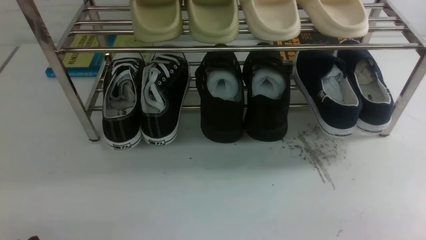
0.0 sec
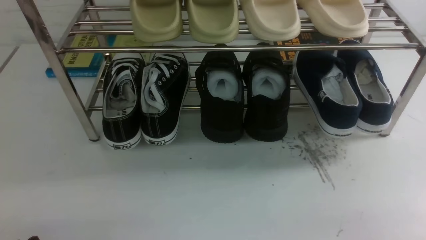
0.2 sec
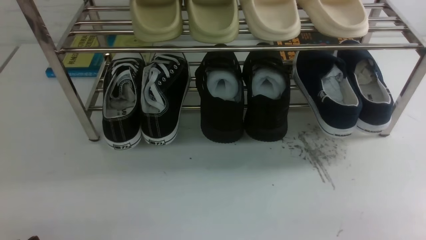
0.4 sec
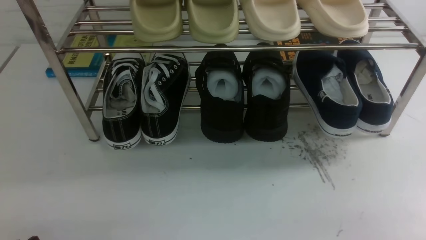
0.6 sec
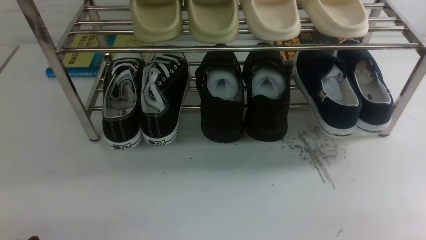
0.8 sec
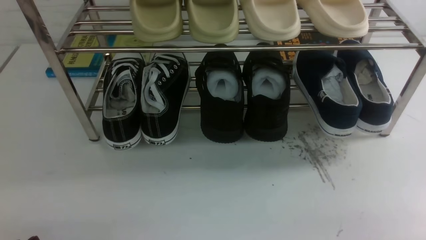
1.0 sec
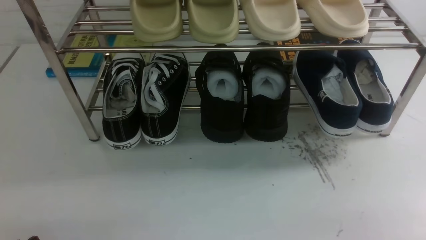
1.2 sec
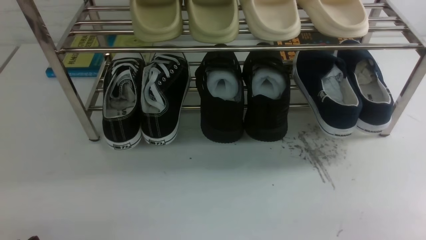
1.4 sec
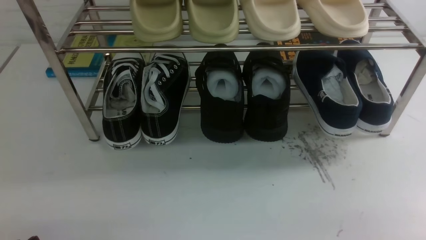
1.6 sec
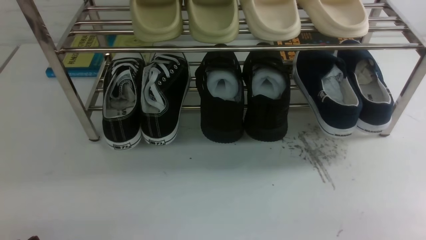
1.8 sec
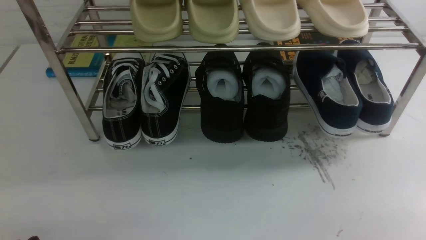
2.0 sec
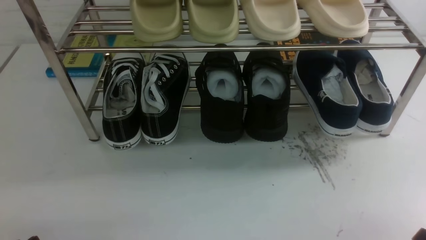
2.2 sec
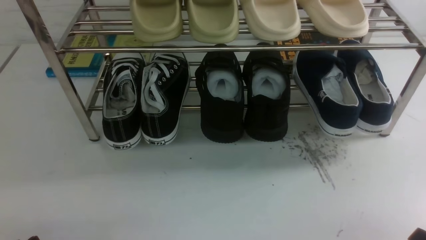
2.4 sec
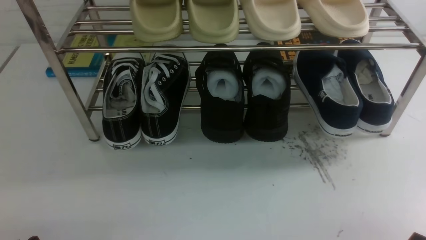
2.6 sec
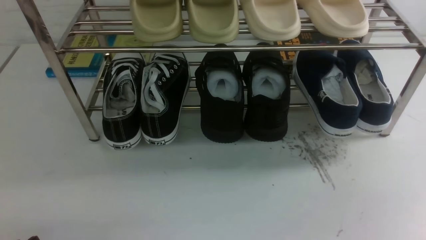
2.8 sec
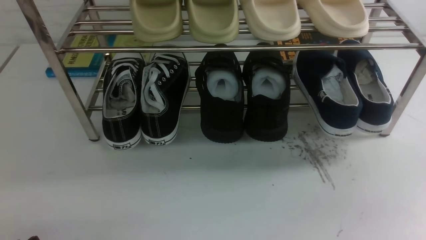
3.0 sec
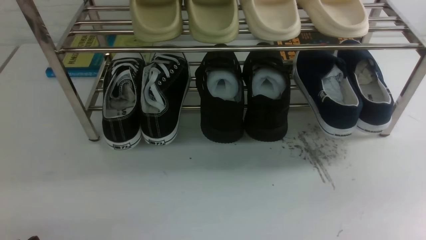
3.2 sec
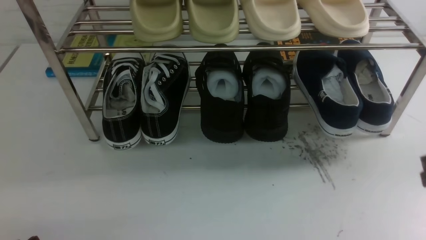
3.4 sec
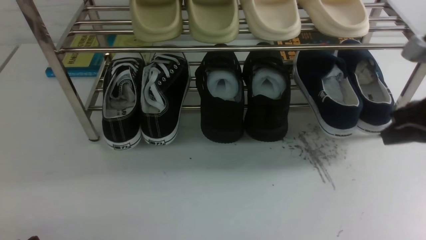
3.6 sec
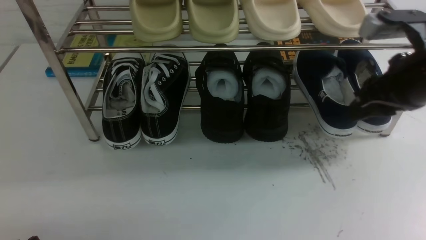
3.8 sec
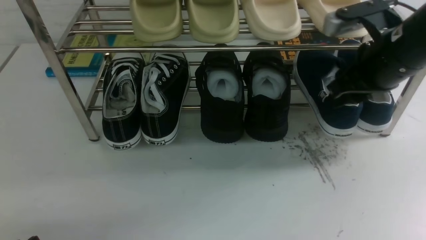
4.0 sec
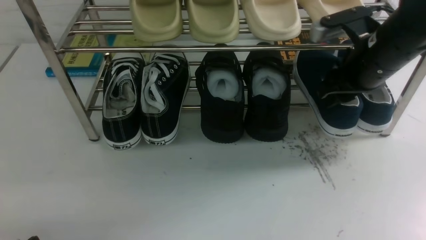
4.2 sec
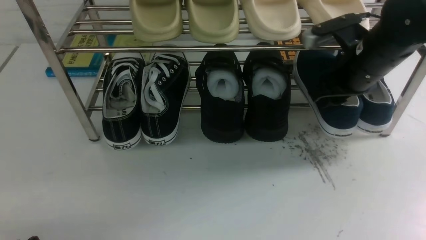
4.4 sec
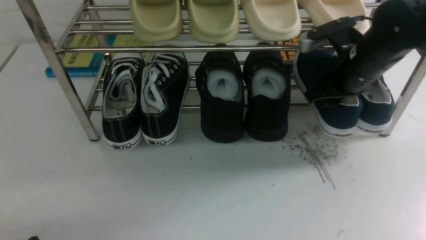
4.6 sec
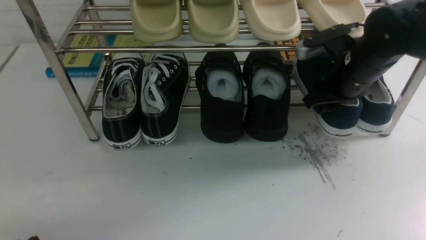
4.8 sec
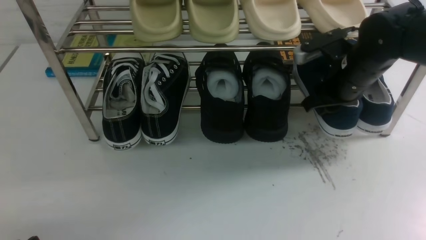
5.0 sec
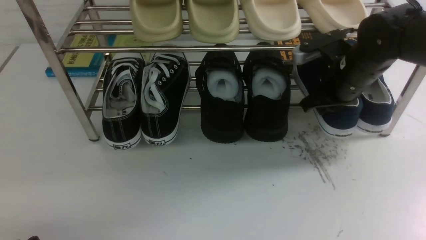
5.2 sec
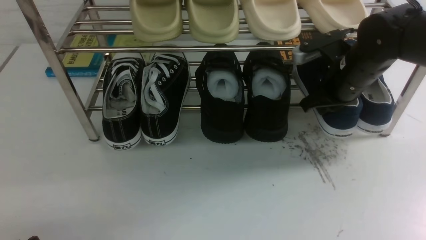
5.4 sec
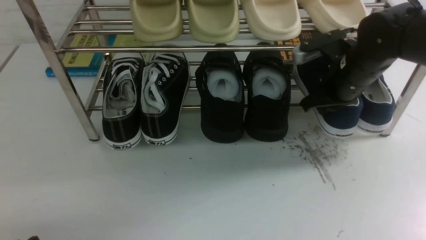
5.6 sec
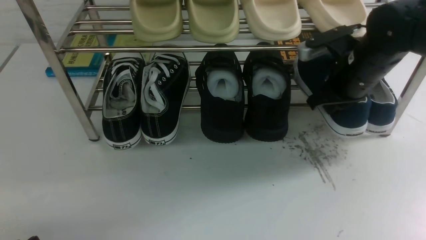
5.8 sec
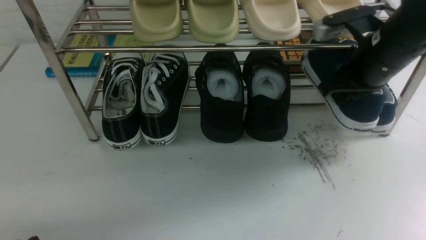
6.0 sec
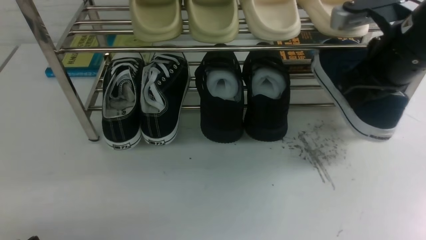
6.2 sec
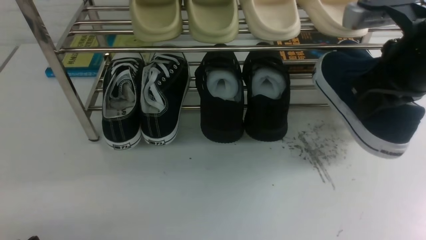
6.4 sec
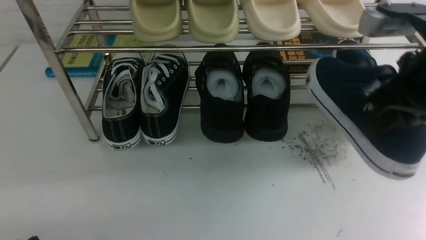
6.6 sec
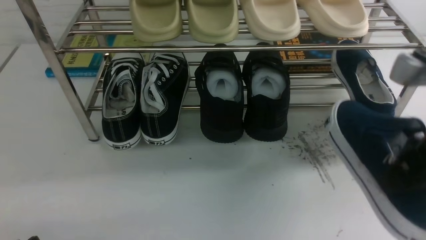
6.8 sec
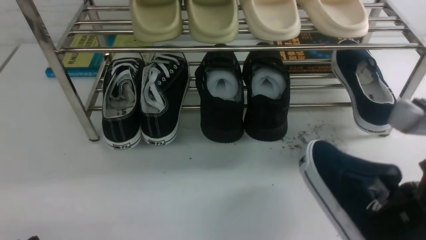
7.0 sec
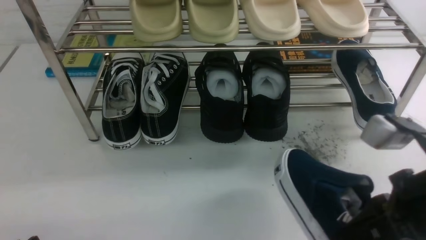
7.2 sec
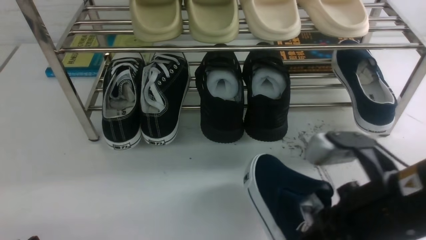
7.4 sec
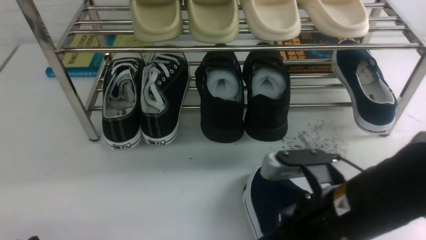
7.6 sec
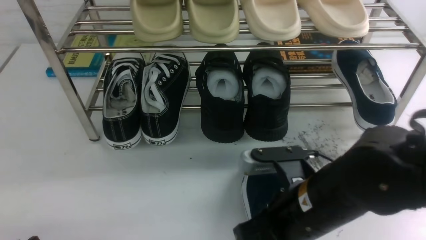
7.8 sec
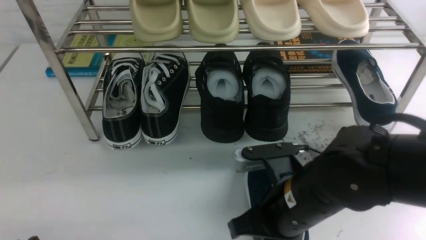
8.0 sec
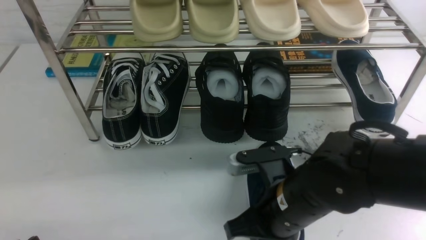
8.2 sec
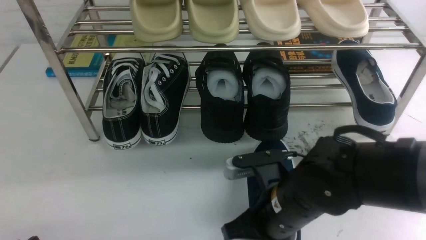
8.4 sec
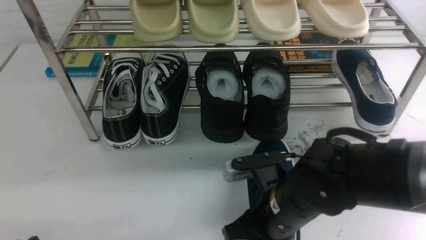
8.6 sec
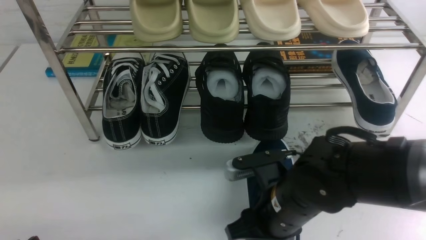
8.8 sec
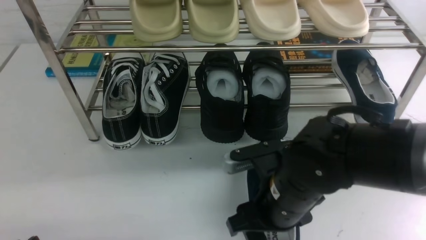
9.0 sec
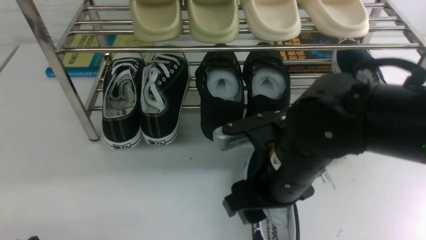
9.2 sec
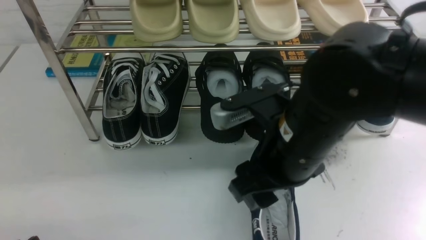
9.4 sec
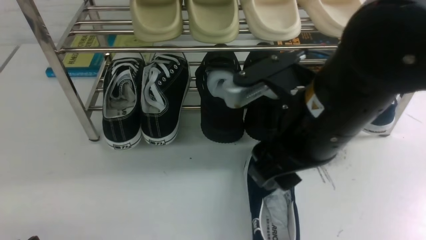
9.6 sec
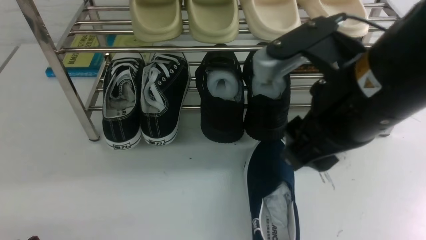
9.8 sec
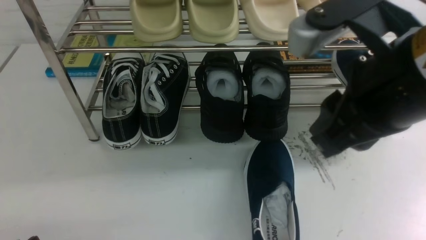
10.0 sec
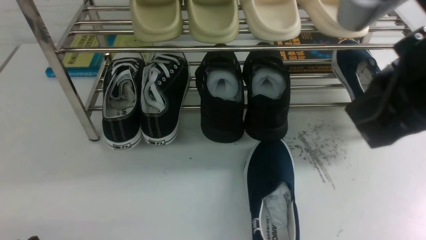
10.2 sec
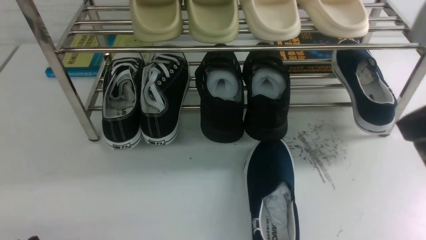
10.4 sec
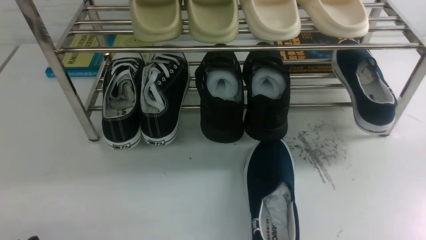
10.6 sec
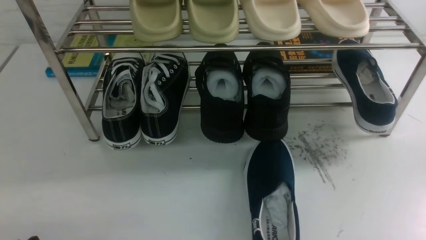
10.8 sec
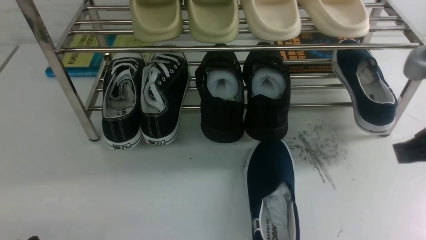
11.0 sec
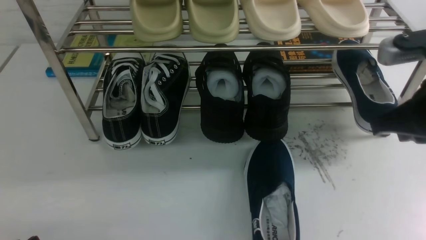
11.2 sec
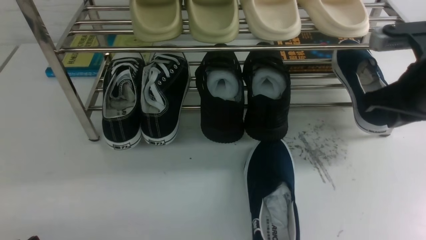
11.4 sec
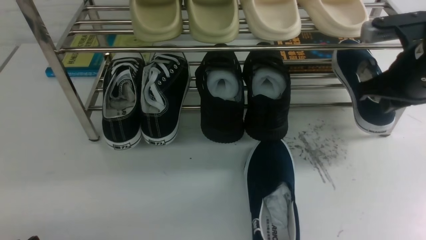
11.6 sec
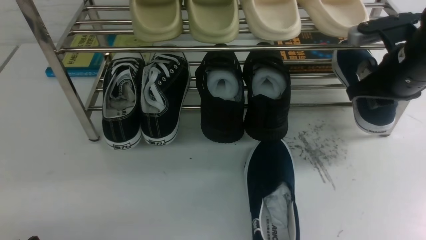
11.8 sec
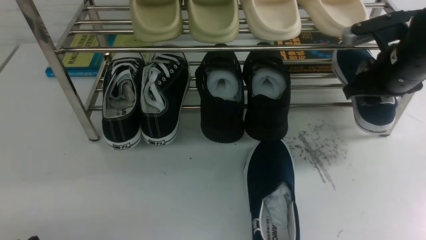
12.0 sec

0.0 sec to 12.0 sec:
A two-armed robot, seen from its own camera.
Step, 0.0 sec to 6.0 sec: use the right arm to clamp a shoe on the right side of the shoe rack.
Step, 6.2 sec to 9.2 sec: use the right arm to take out the clamped shoe from the shoe rack and put it down.
0.0 sec to 1.6 sec: Neither gripper changes place.
3.0 sec to 4.4 sec: The right gripper goes approximately 30 cm forward, and opens.
4.4 sec to 6.0 sec: The right gripper closes its fingers.
6.0 sec to 7.6 sec: The right gripper shifts some 20 cm backward, to the left and downward.
7.6 sec to 9.0 sec: The right gripper changes place by some 10 cm, and opens.
9.0 sec to 10.4 sec: The right gripper is displaced upward and to the right by roughly 25 cm, and closes its fingers.
10.4 sec to 12.0 sec: The right gripper shifts some 25 cm forward and downward, and opens its fingers.

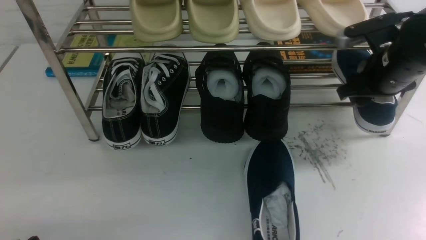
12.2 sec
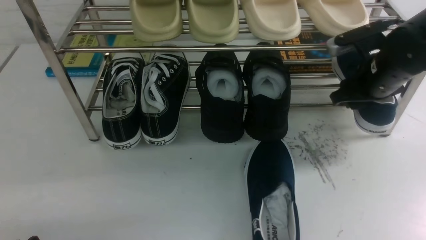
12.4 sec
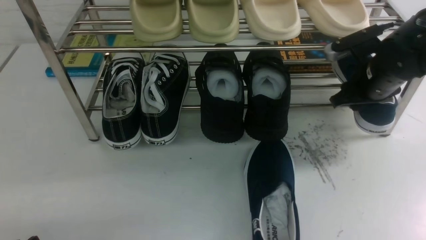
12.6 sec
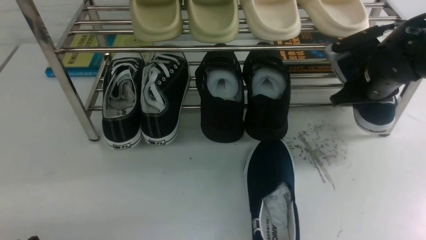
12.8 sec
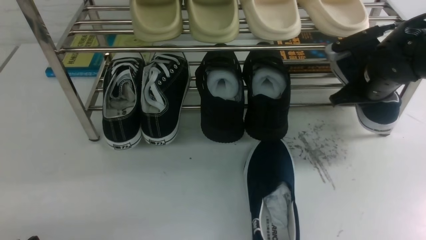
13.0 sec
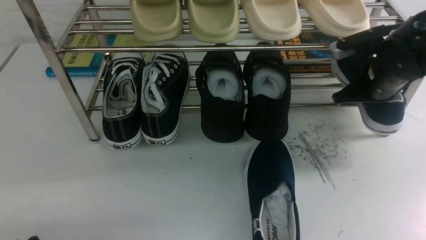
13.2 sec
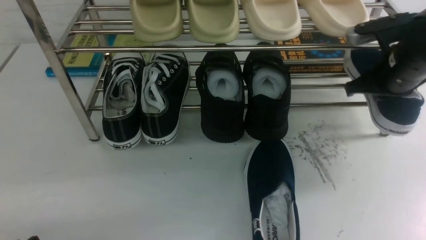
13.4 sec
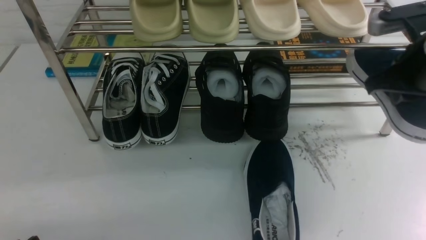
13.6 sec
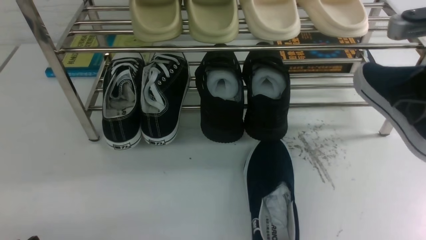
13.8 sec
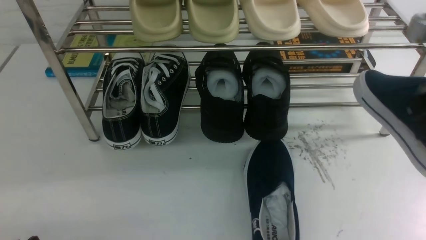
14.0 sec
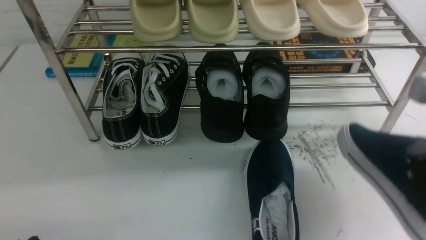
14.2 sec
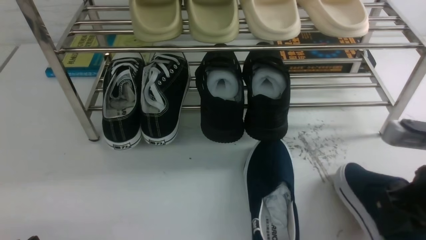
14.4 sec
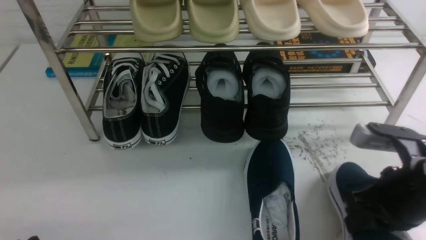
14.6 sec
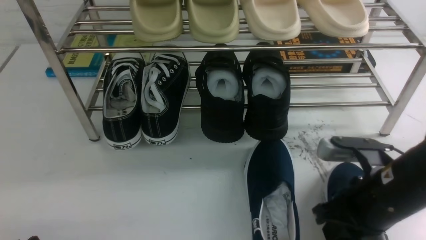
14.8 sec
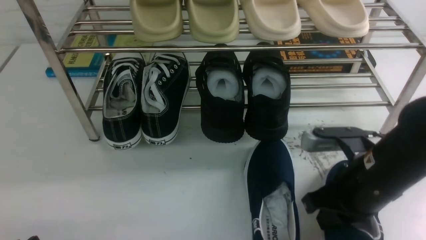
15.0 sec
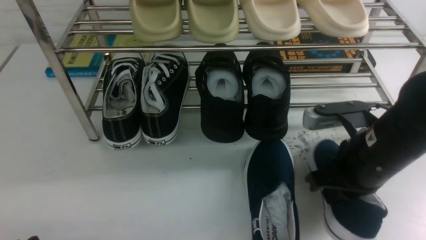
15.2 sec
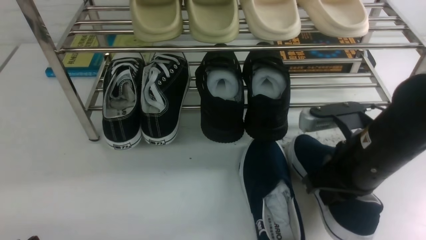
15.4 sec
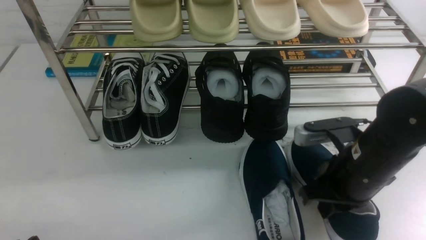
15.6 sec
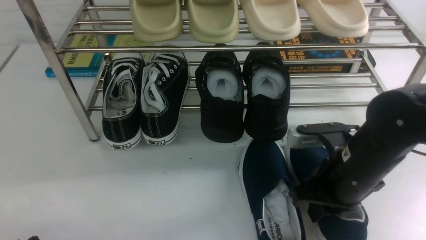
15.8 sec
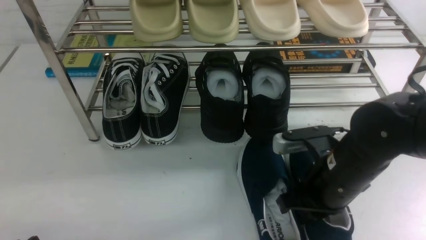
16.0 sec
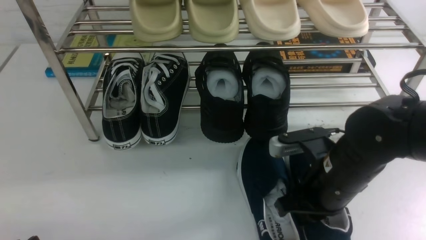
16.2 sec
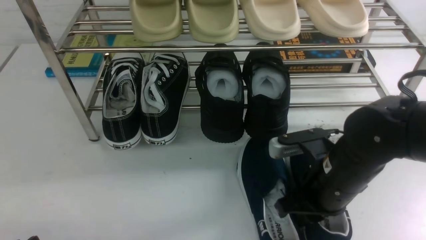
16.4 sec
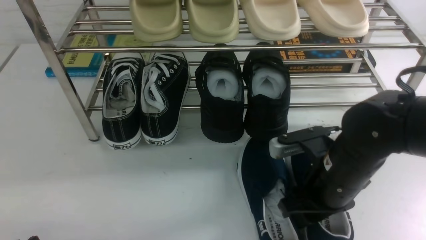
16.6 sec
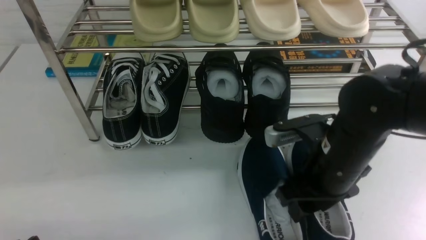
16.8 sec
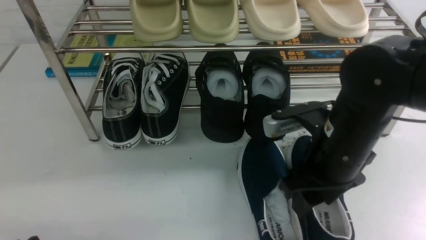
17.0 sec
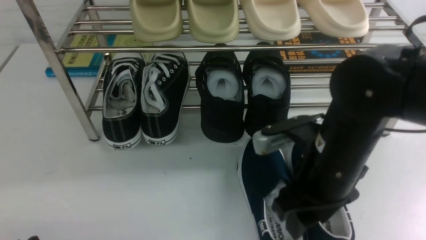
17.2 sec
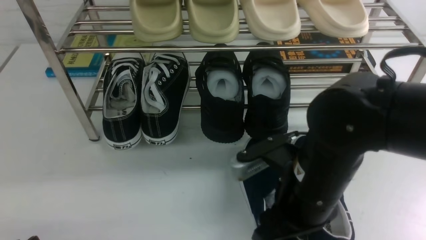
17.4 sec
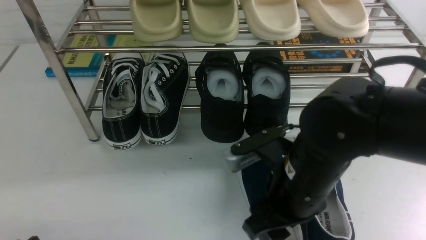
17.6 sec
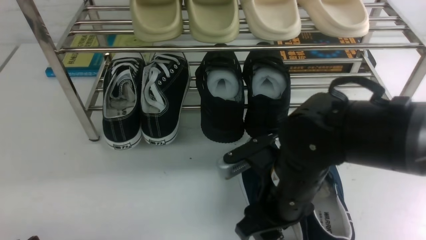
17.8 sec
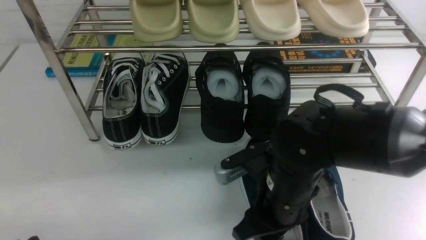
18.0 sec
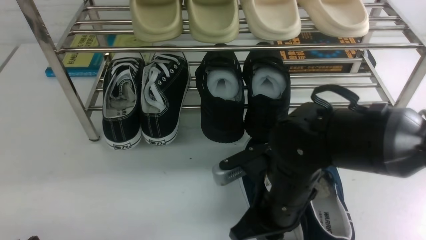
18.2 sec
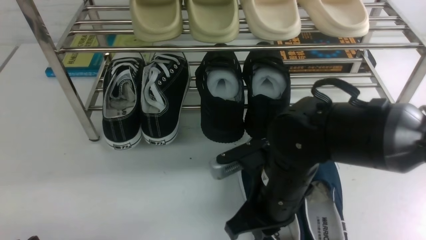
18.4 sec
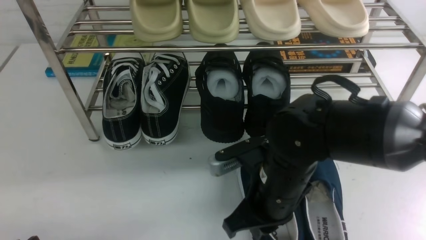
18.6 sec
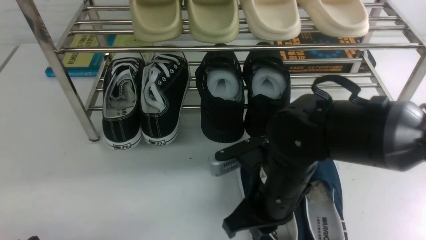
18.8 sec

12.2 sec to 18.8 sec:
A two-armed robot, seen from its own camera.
Step, 13.6 sec to 17.0 sec: use the right arm to take out the clamped shoe from the shoe rack and put it down.
12.2 sec to 13.8 sec: The right gripper goes some 15 cm backward and upward, and closes.
13.8 sec to 15.4 sec: The right gripper shifts approximately 15 cm downward and to the left.
15.4 sec to 17.2 sec: The right gripper is displaced to the left by approximately 5 cm, and opens its fingers.
17.2 sec to 18.8 sec: The right gripper travels to the left by about 5 cm, and closes.
